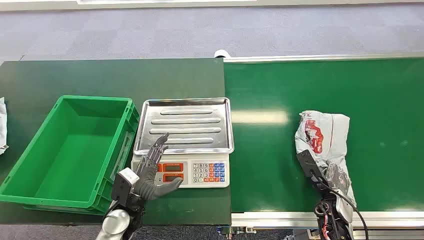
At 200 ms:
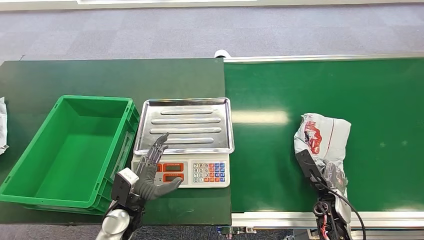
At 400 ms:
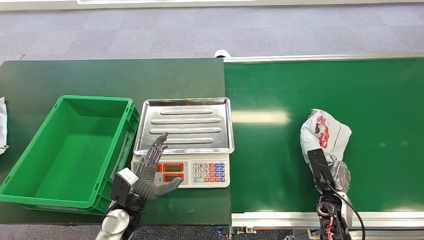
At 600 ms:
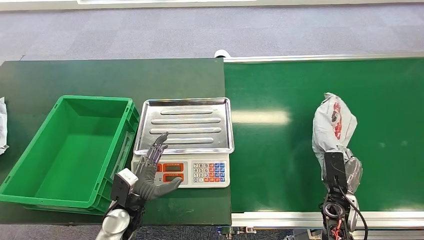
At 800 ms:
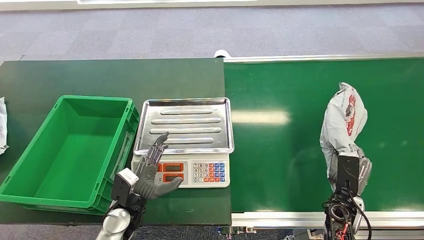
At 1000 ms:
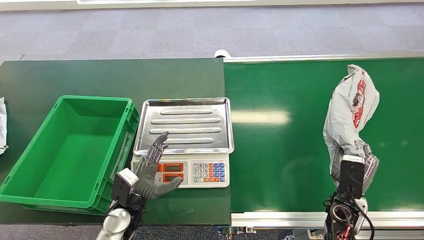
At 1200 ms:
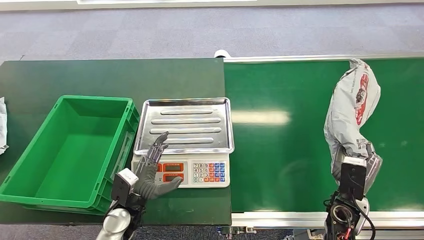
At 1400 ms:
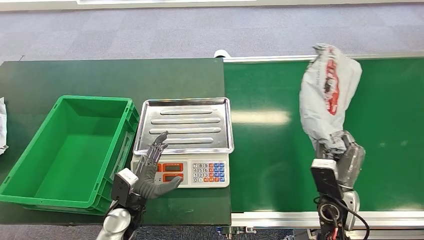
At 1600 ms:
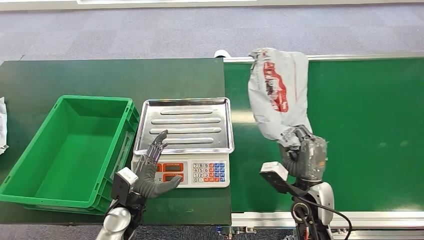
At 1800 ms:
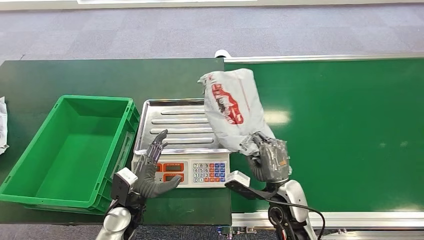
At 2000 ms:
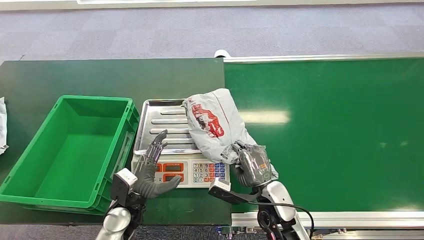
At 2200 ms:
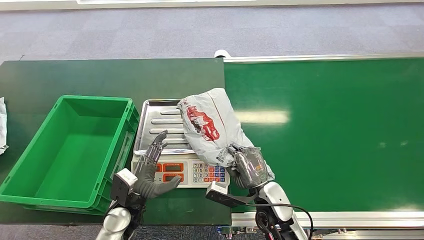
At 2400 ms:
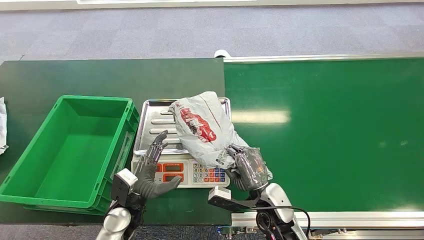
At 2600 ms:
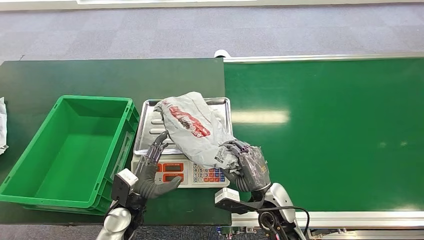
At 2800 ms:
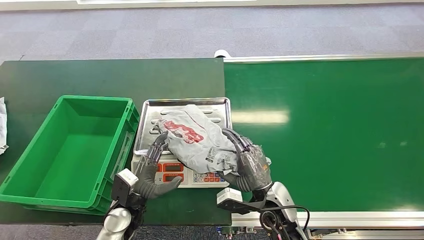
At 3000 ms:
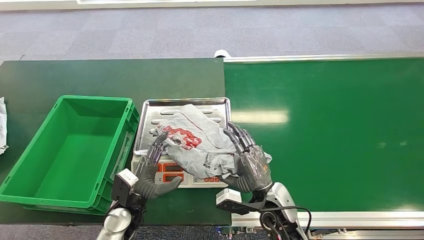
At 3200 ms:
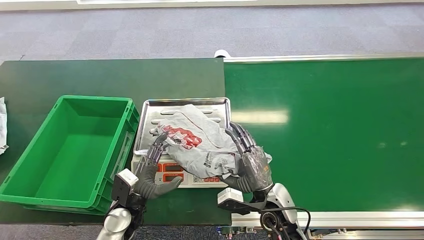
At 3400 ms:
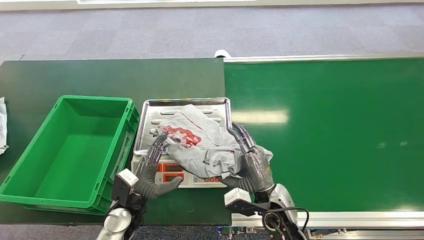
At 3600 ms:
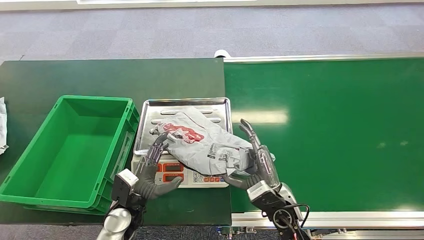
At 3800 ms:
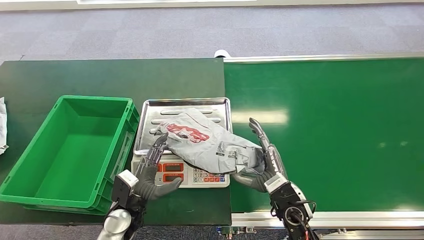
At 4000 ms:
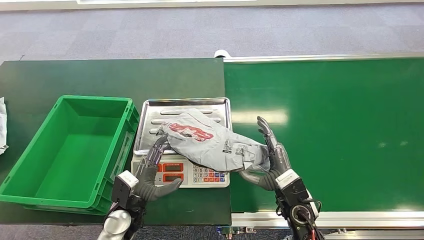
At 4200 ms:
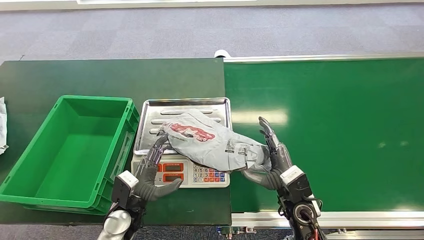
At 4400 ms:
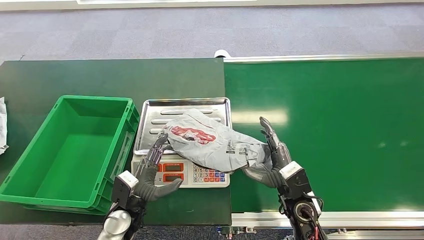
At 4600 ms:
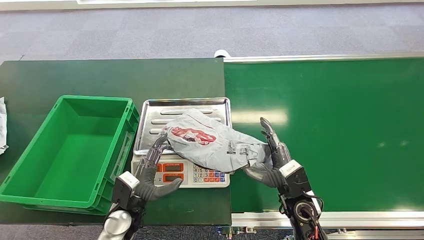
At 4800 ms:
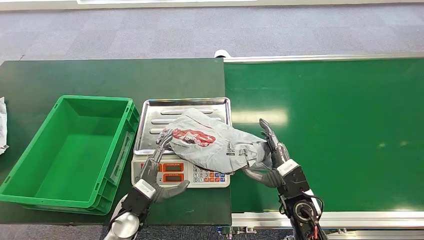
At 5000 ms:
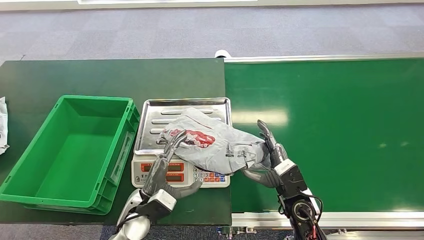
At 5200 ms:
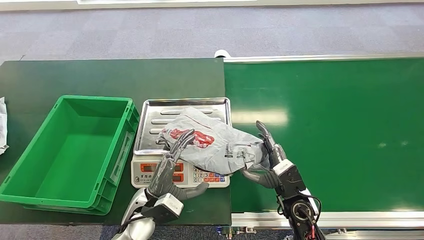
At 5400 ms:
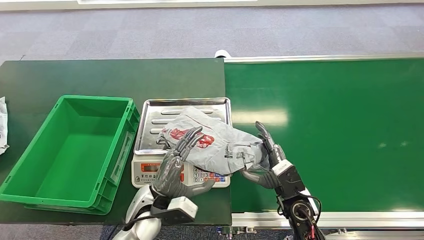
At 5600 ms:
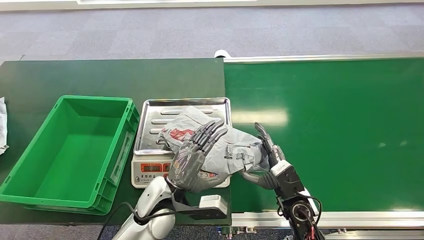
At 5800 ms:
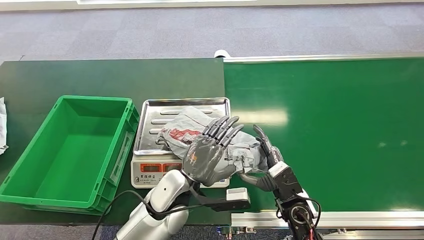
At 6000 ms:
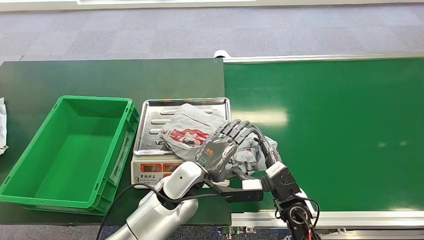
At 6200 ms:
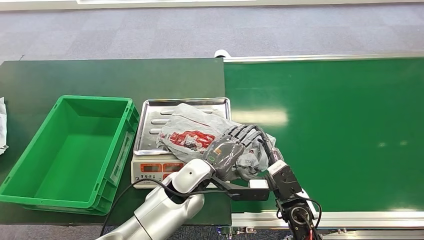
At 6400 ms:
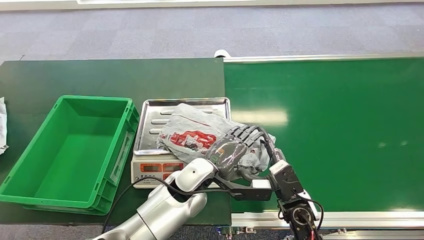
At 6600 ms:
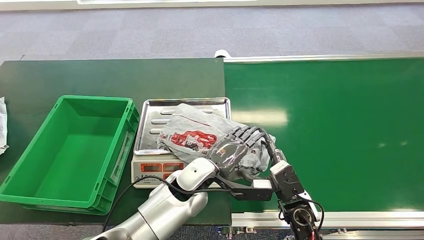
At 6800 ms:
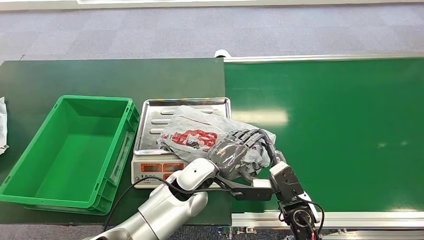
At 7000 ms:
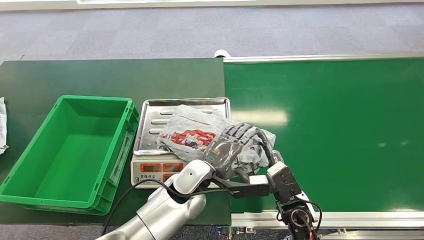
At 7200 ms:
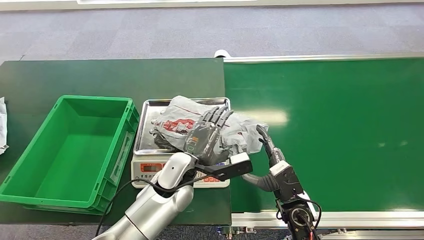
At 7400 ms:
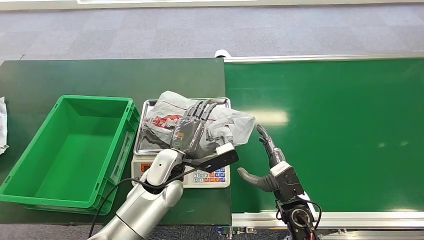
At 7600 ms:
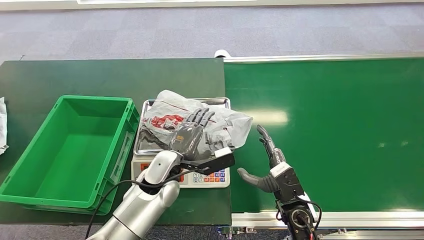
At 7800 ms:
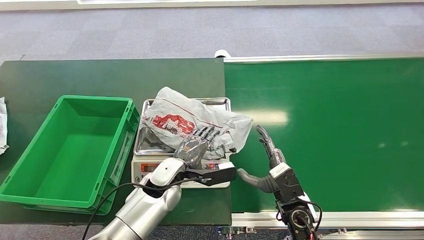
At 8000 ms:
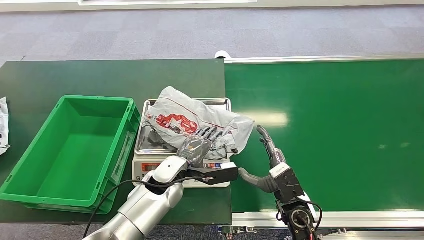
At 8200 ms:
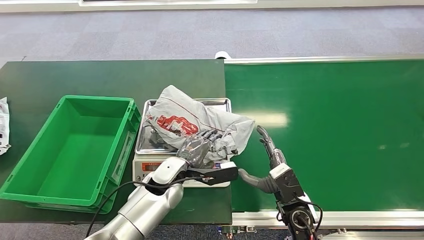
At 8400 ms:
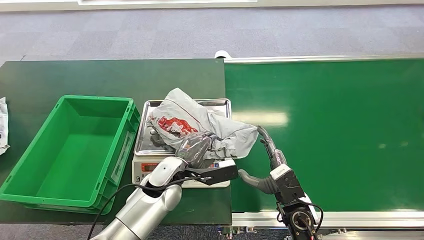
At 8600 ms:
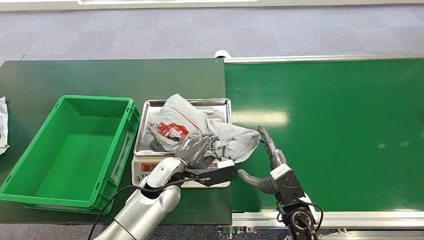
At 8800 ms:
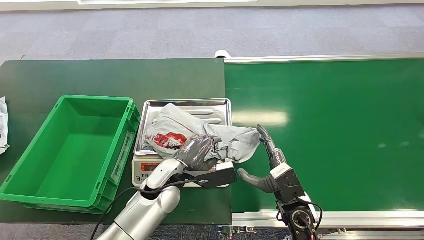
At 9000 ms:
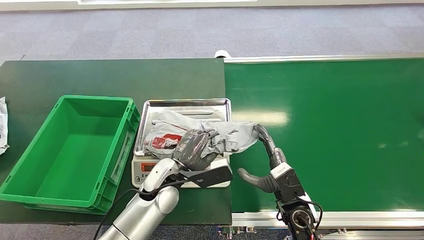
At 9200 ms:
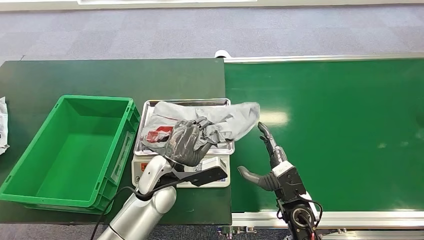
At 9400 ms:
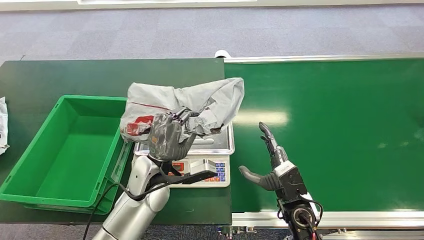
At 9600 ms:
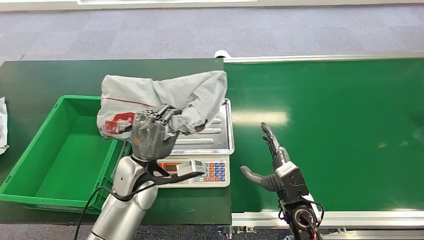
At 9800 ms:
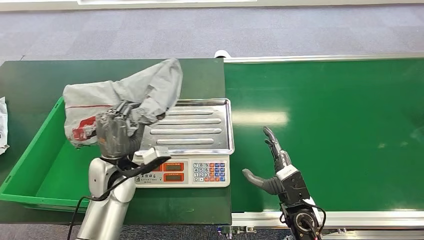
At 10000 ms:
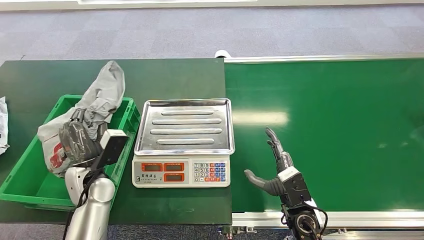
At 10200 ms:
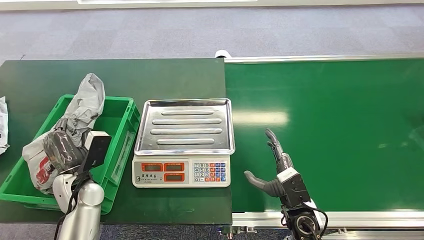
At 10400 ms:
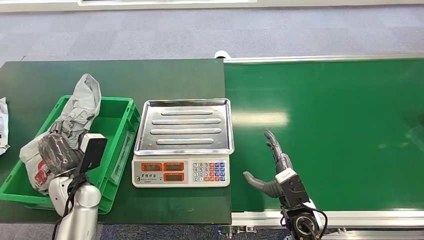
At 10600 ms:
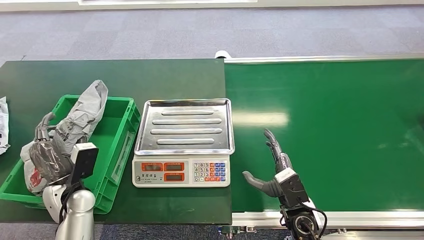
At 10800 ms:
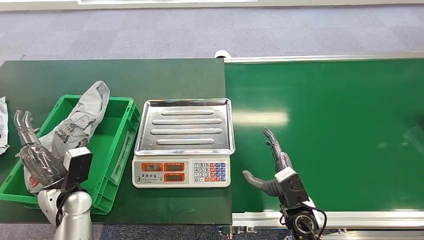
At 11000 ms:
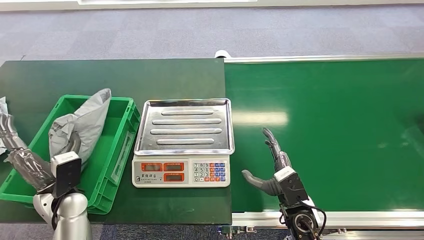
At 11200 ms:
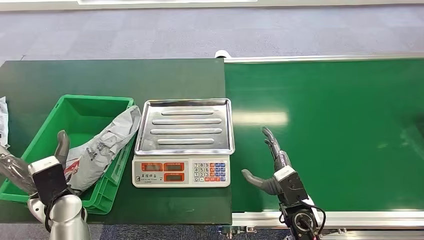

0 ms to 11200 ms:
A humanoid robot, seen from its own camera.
Step, 0 ms to 1200 ms: Pick up the package from the conveyor belt.
Step, 1800 ms to 6000 ms: Place the package onto the inbound machine.
Step, 8600 ms to 9600 ms: Pick up the package from the inbound machine.
Step, 10200 ms to 11000 ms: Place the package into the parcel locker.
1600 ms to 3200 ms: The right hand shifts roughly 10 cm to the left.
3200 ms to 4800 ms: The right hand shifts approximately 5 cm to the right.
4800 ms to 6400 ms: The left hand travels to the right, upward and forward by some 20 cm.
6400 ms to 8000 ms: The left hand shifts approximately 5 cm to the left.
9600 ms to 11200 ms: The left hand travels to the left by about 15 cm.
